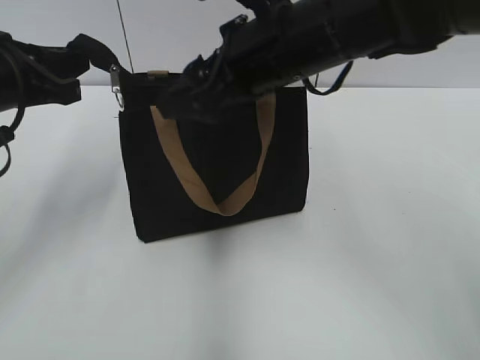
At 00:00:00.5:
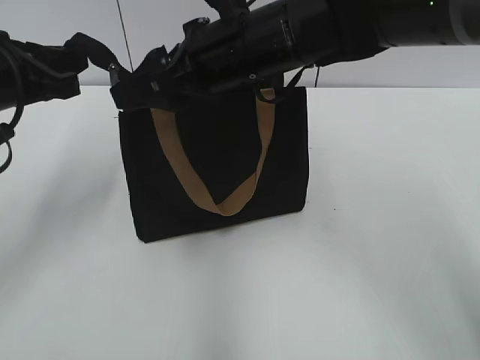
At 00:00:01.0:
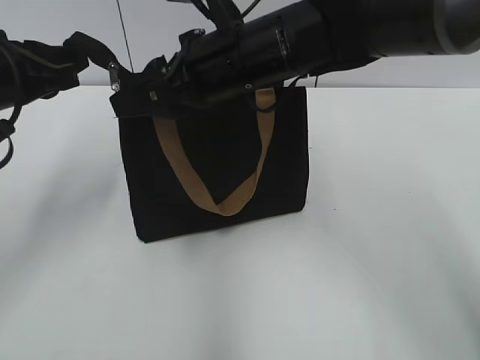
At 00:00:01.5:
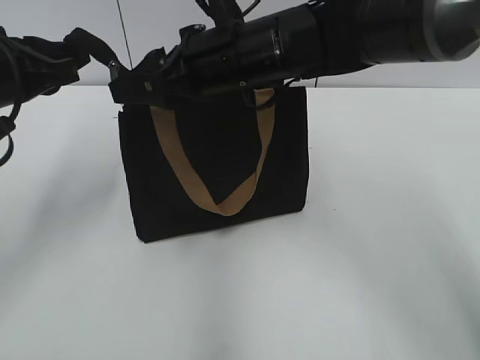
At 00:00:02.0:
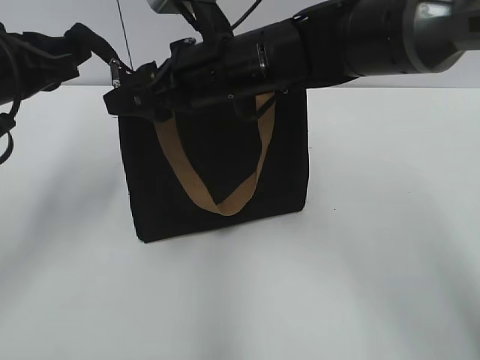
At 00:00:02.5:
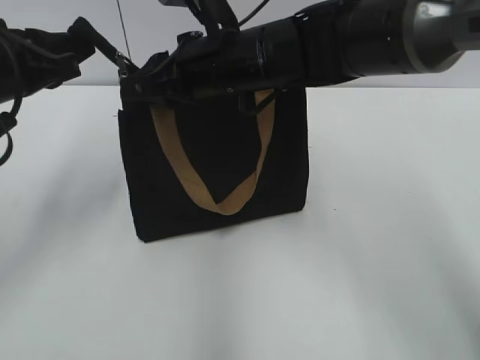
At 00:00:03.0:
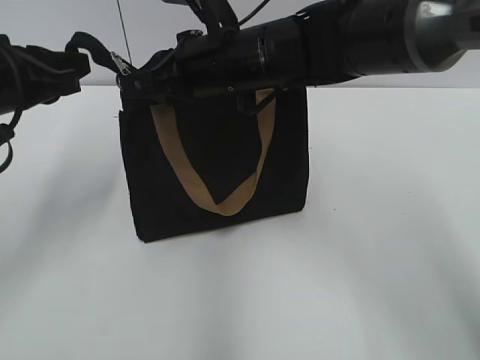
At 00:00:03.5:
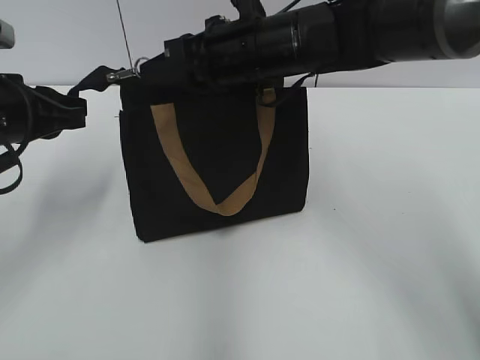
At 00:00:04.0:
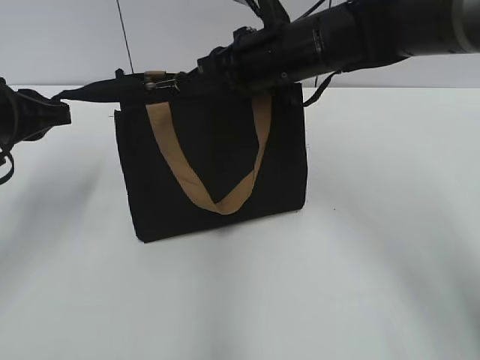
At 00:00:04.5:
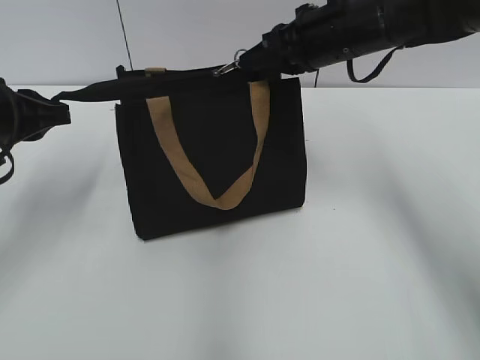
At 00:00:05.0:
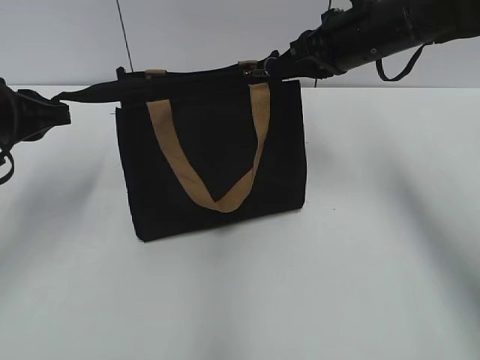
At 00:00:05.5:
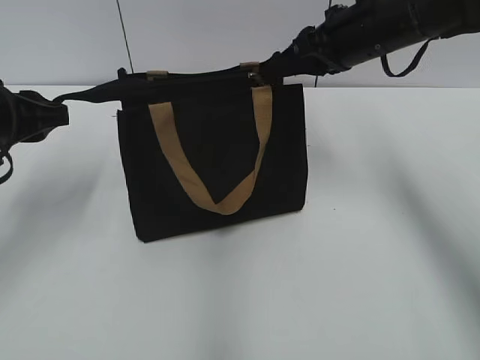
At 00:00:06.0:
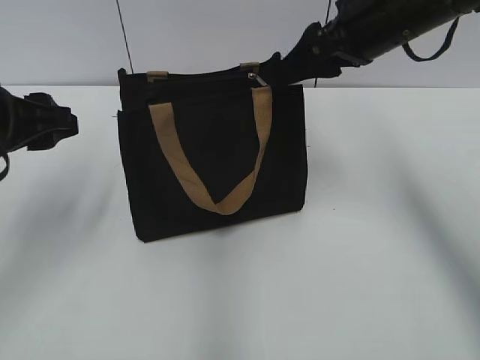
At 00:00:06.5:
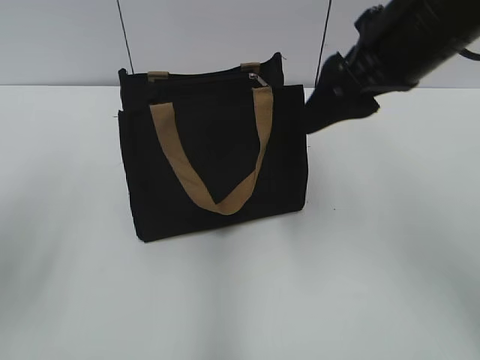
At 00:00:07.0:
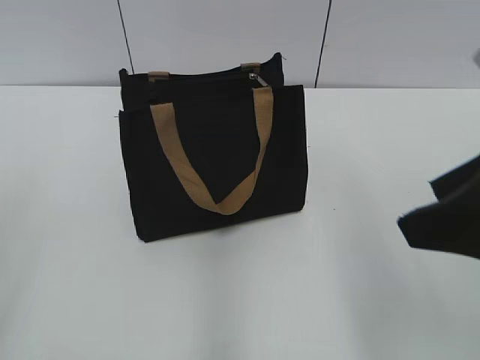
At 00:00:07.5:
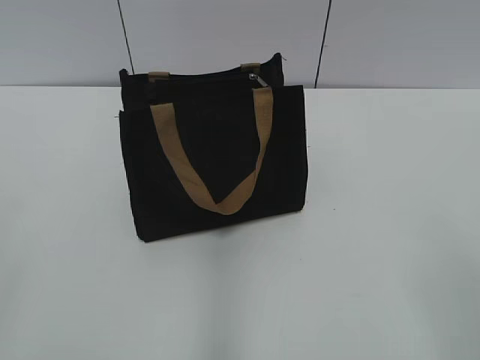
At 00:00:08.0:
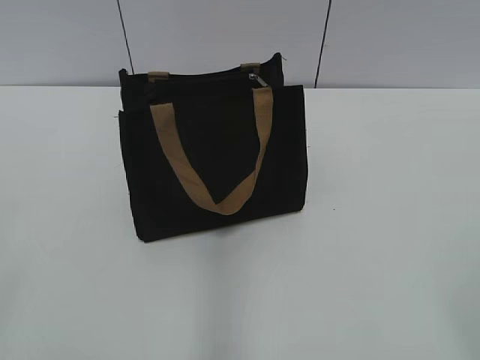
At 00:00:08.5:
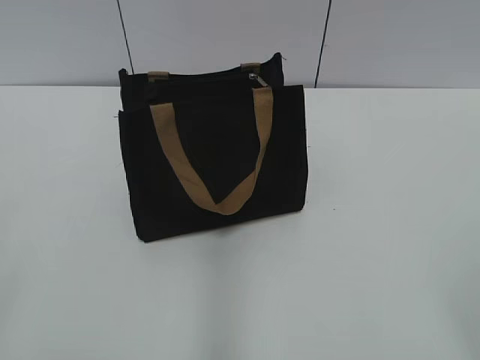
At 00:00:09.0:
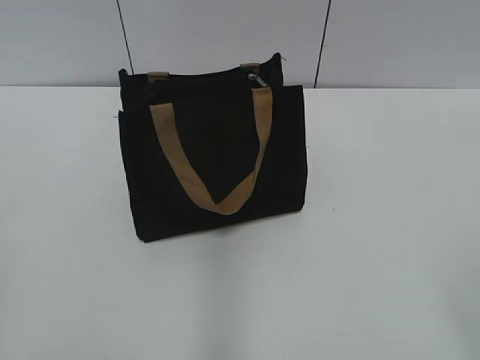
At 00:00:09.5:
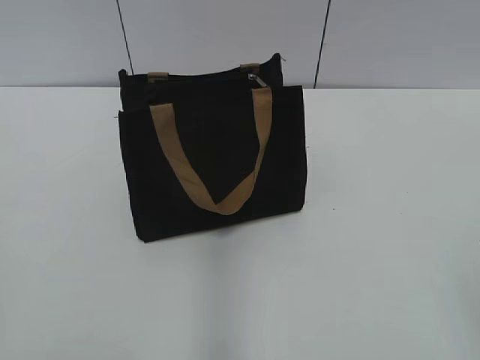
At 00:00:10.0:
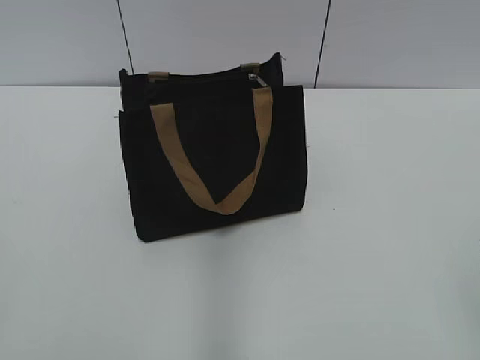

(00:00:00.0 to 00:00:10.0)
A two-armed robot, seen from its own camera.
Step, 00:00:00.0 - 00:00:05.5: Zip up the bag with your right hand.
00:00:00.0 - 00:00:02.0: The right gripper ends up some 10 cm from where it was.
00:00:02.0 - 00:00:04.0: The right gripper moves to the right, some 5 cm, and closes up.
00:00:04.0 - 00:00:06.0: The right gripper heads to the right, covering roughly 10 cm, and opens up. Meanwhile the left gripper opens its fingers.
00:00:06.0 - 00:00:08.0: Both grippers move backward, roughly 30 cm.
